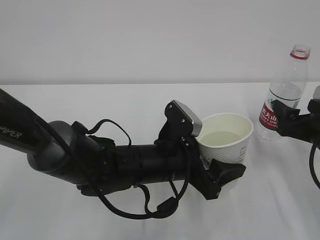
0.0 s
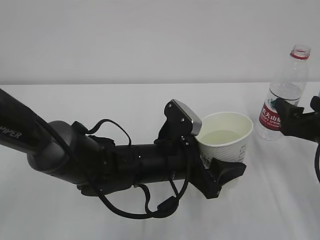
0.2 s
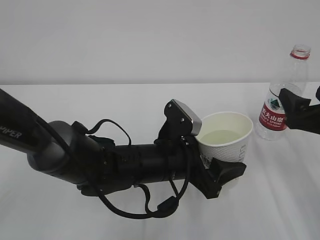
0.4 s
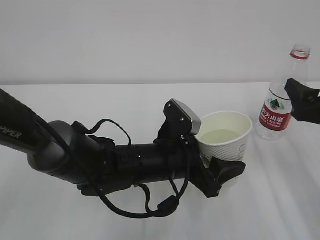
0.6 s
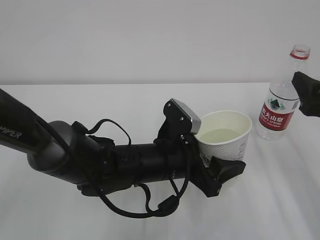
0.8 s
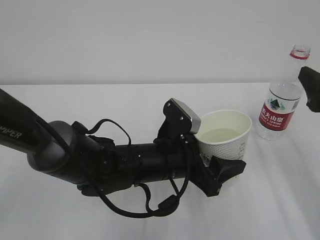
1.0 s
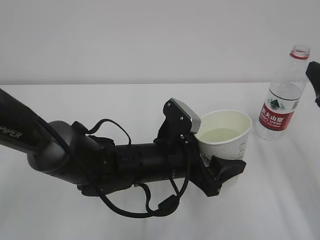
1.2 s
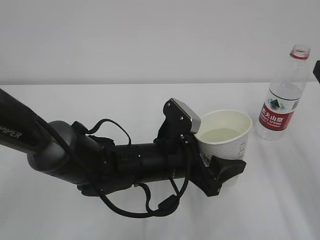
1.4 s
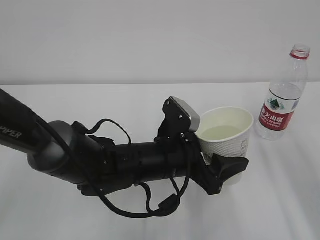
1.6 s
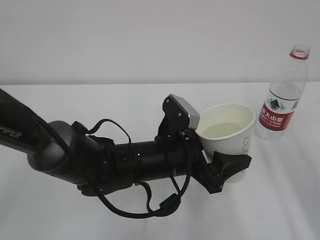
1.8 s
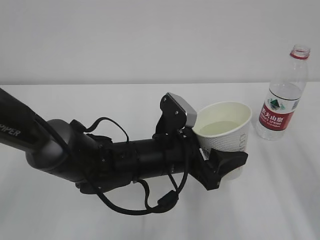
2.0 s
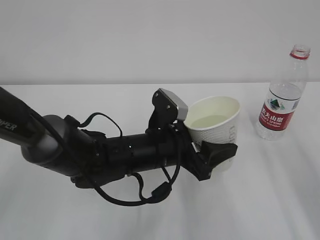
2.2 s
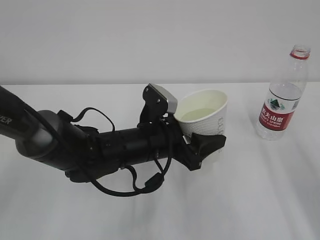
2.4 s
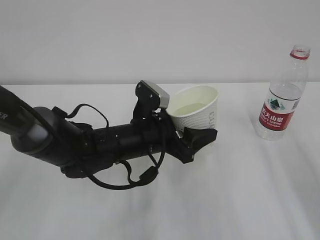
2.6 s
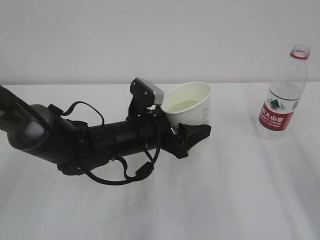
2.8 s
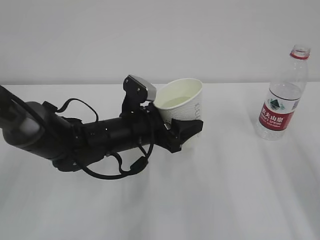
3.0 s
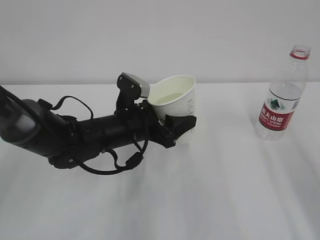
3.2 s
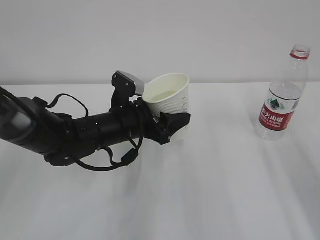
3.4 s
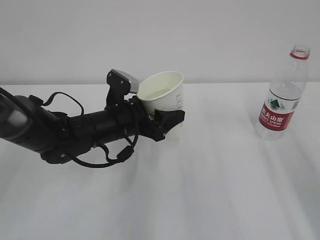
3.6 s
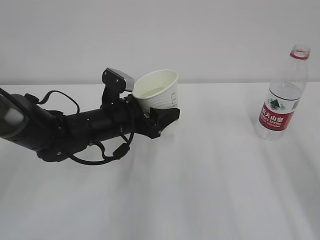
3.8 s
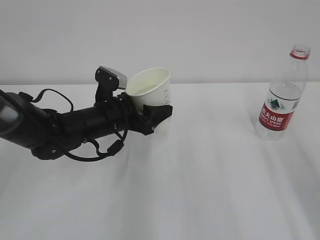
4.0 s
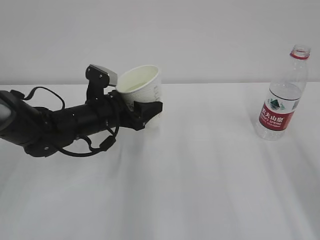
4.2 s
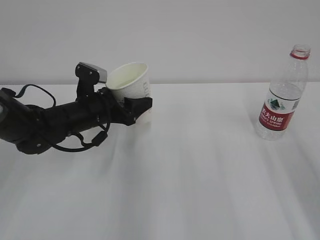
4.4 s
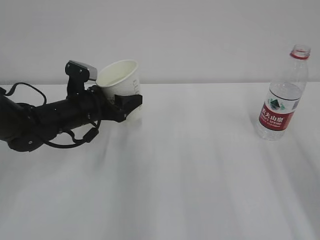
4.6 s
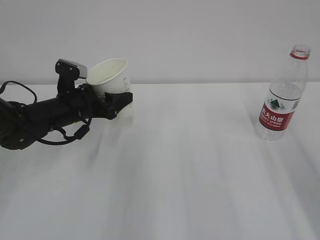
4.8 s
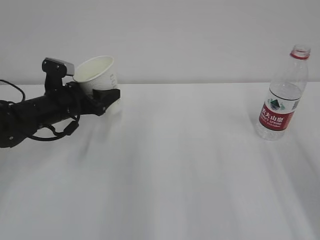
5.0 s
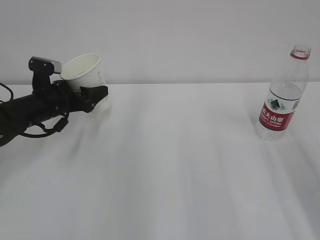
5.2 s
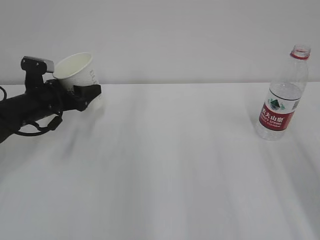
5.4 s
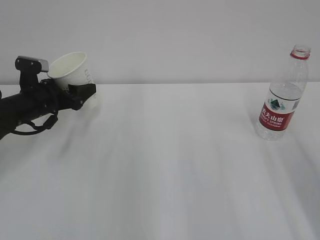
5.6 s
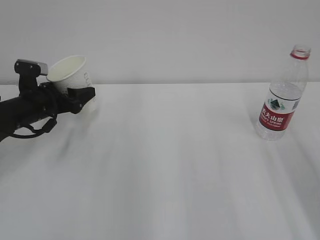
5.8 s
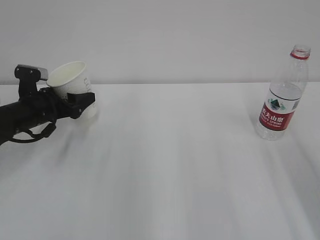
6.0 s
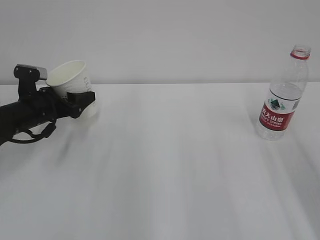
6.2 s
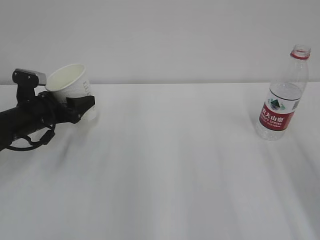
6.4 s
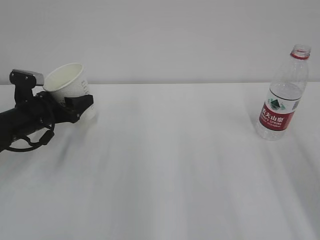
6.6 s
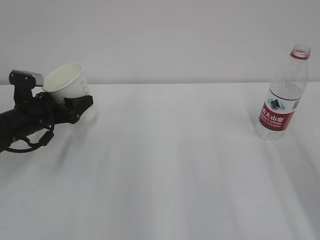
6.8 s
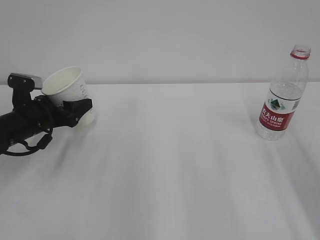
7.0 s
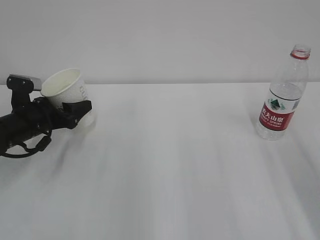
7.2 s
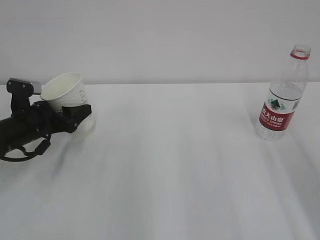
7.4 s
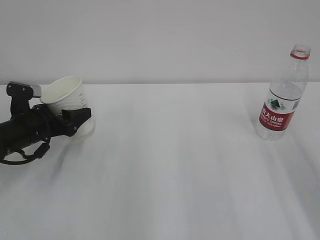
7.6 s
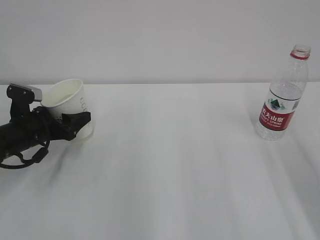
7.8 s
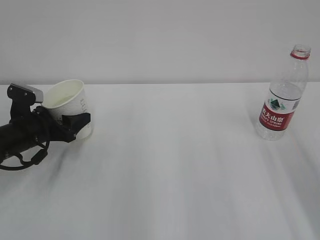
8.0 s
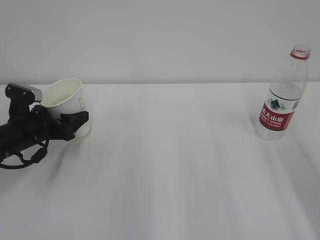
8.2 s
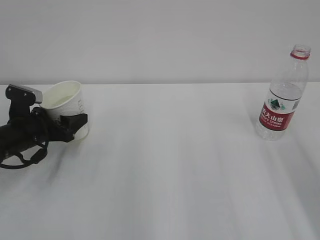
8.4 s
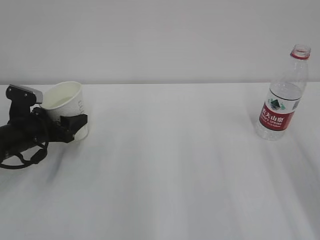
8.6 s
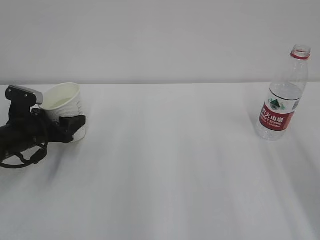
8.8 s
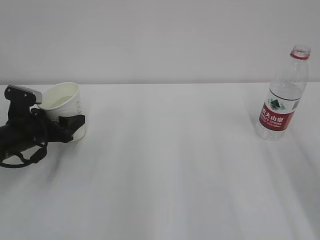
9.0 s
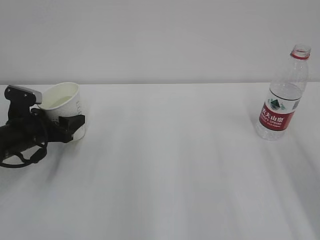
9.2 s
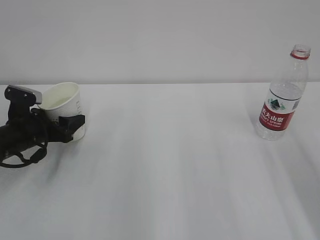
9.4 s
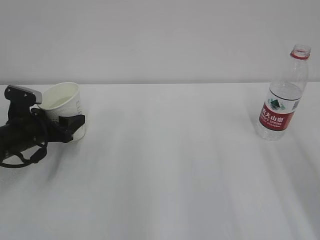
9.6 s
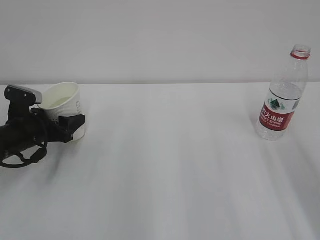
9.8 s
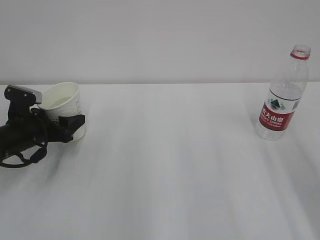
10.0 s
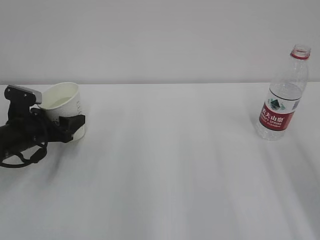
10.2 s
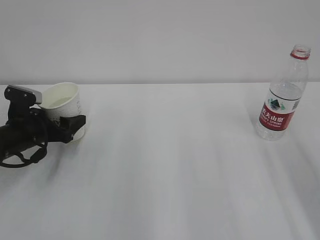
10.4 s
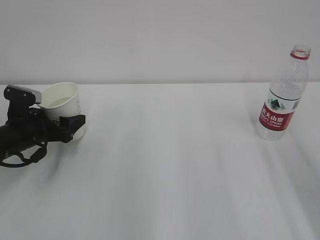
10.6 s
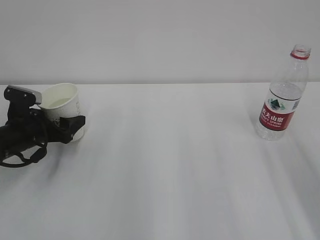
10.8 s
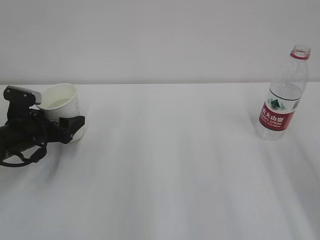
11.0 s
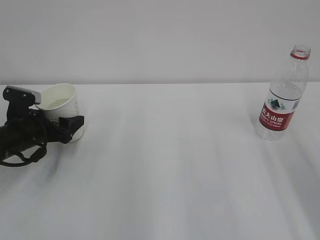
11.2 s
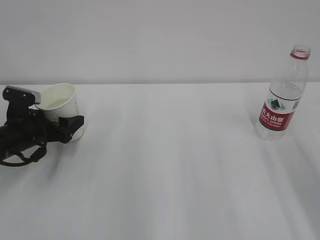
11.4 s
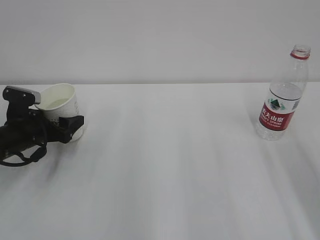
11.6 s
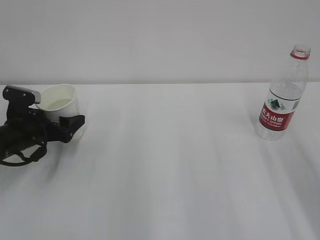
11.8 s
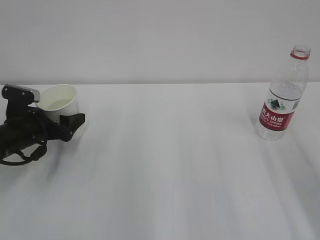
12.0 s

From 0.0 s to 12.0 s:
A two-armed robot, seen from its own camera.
From 0.0 s to 1.6 s: The right gripper goes approximately 15 cm upward and backward.
From 1.6 s to 3.0 s: The left gripper travels forward and to the left by approximately 10 cm.
From 3.0 s to 4.4 s: The left gripper is displaced to the left and forward by about 10 cm.
From 4.4 s to 6.0 s: The left gripper is displaced to the left by approximately 10 cm.
From 6.0 s to 9.0 s: The grippers move only a little.
From 9.0 s to 10.4 s: The two grippers keep their place.
From 10.4 s to 12.0 s: The left gripper opens up.

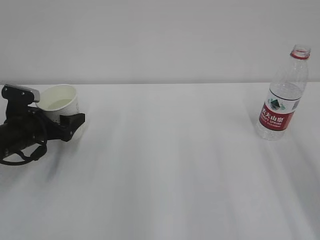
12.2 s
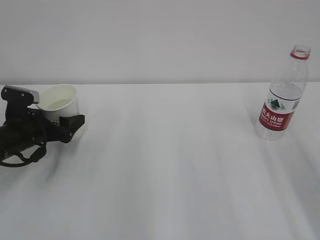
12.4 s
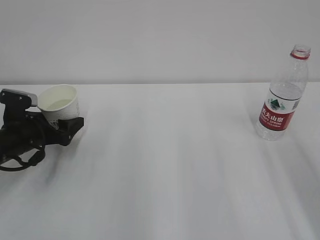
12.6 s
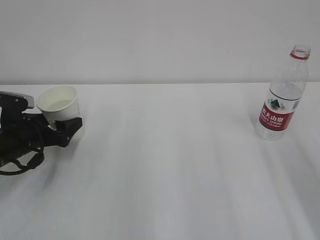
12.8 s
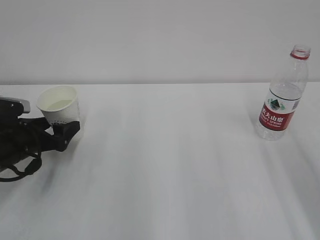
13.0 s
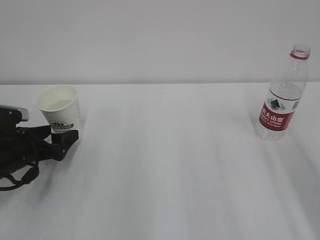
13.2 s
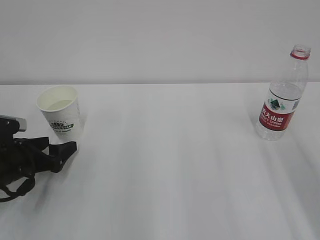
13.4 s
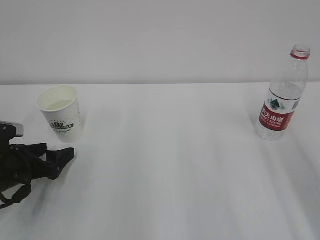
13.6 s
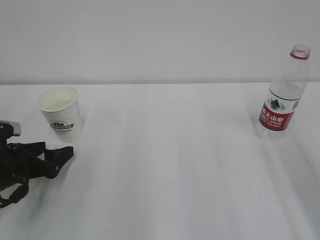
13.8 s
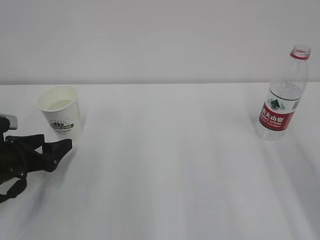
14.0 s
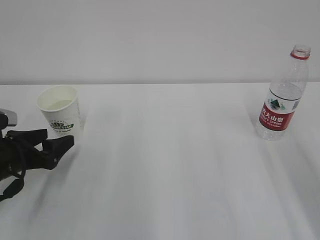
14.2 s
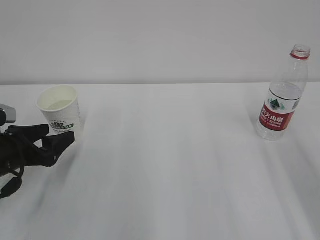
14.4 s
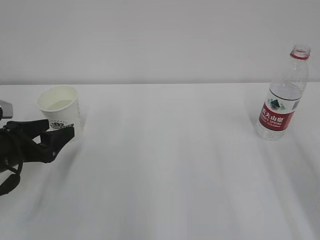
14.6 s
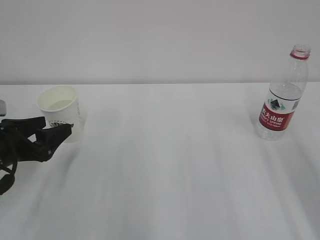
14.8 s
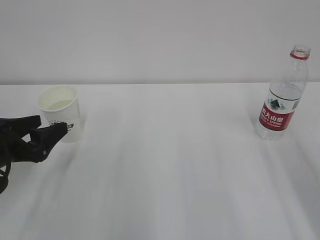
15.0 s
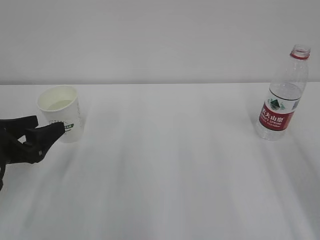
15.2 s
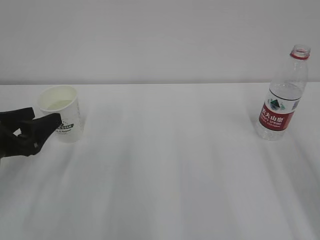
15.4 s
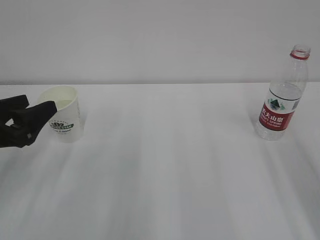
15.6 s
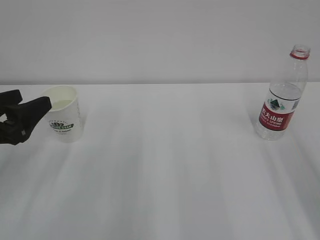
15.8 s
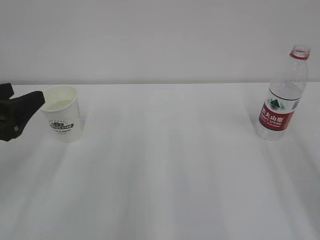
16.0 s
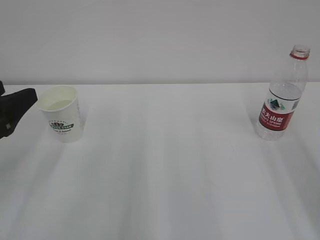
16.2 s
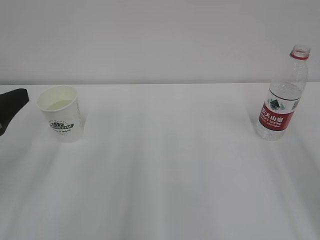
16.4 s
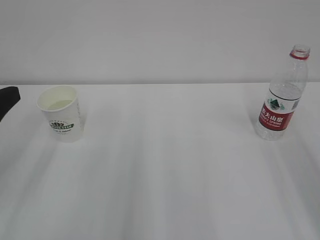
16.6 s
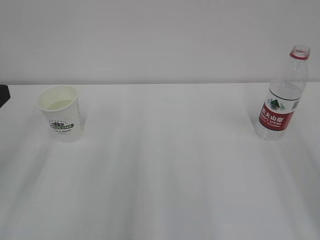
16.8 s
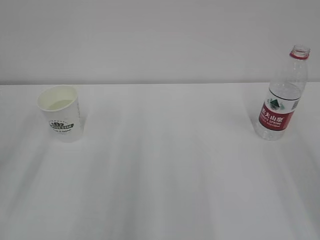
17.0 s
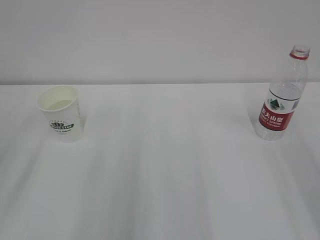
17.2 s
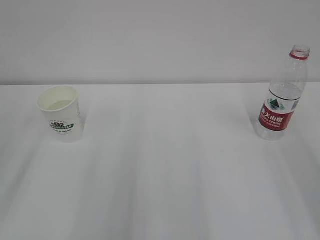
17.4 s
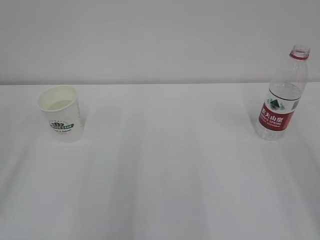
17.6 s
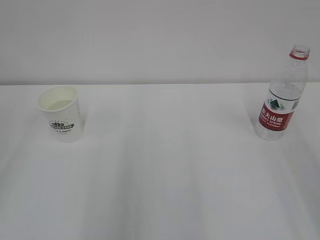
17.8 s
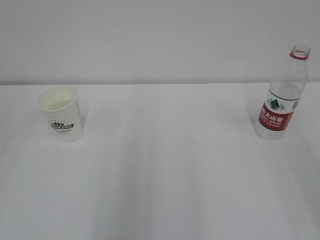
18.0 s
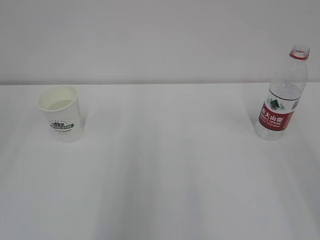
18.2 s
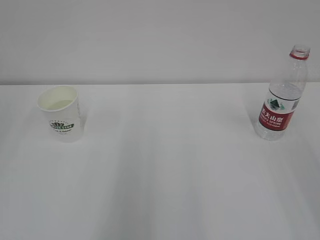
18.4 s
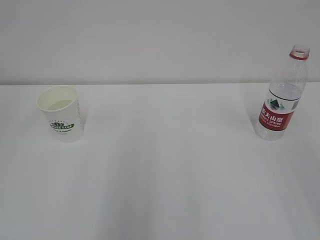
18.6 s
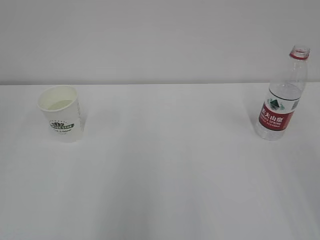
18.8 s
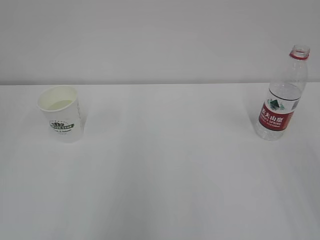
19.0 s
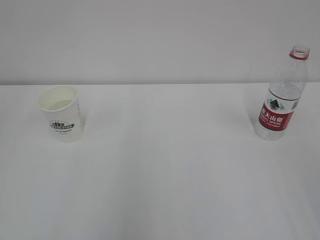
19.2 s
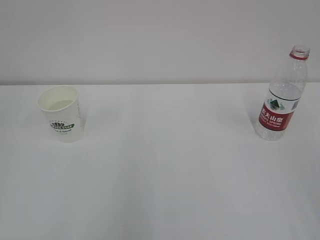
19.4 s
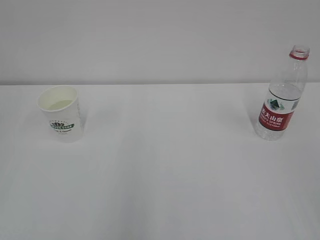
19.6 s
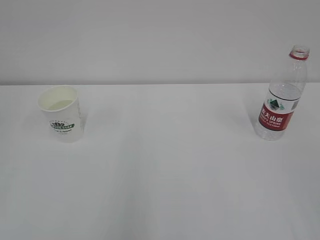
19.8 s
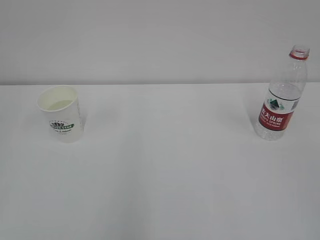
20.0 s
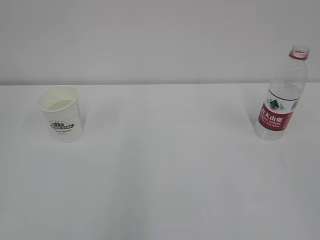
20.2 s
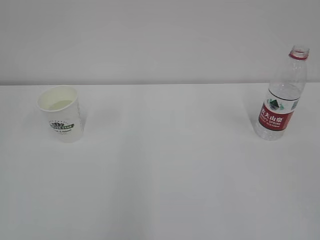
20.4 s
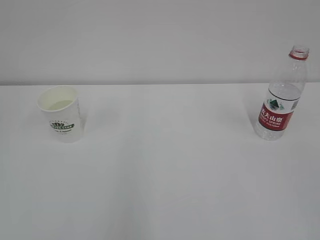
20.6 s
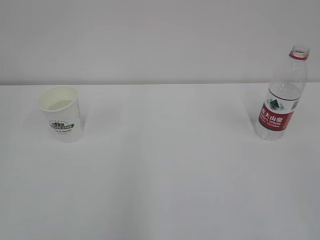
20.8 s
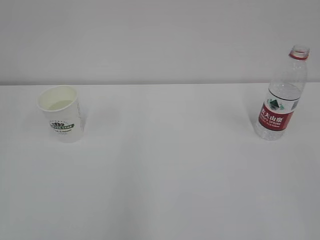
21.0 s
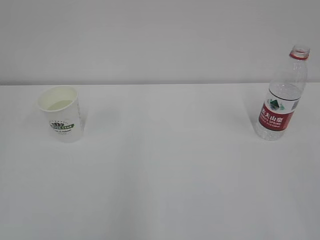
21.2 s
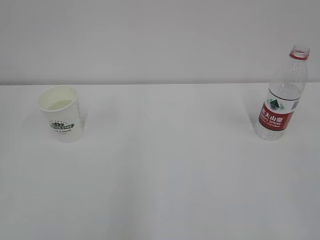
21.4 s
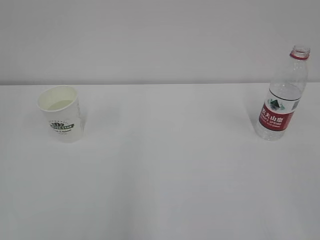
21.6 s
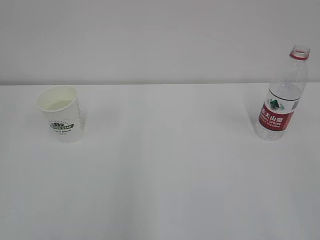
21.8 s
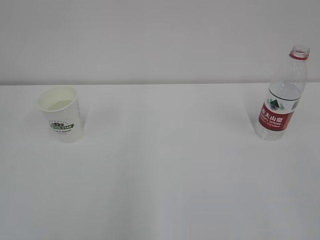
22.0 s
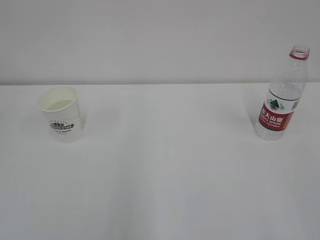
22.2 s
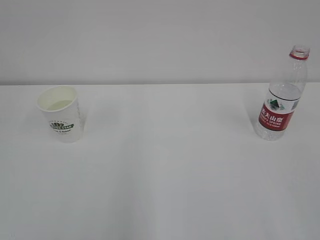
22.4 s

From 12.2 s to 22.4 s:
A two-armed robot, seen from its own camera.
From 12.2 s to 13.6 s: The left gripper goes some 10 cm backward.
From 13.6 s to 15.2 s: The left gripper goes roughly 10 cm upward.
From 15.2 s to 16.6 s: The left gripper goes roughly 10 cm upward.
